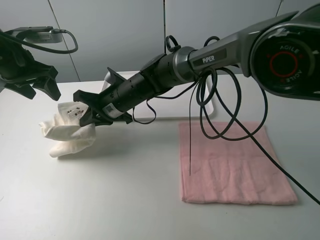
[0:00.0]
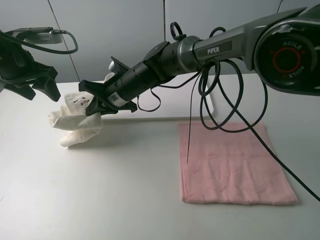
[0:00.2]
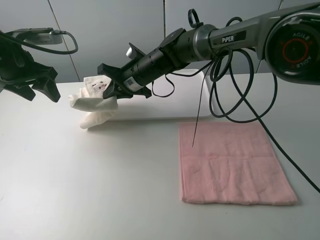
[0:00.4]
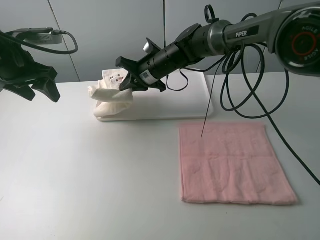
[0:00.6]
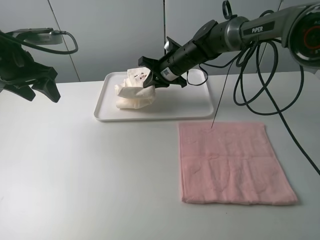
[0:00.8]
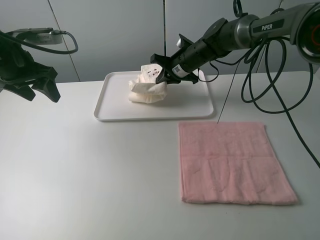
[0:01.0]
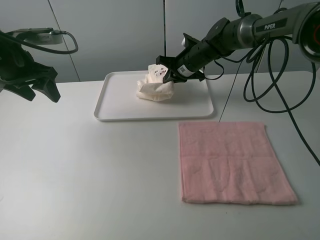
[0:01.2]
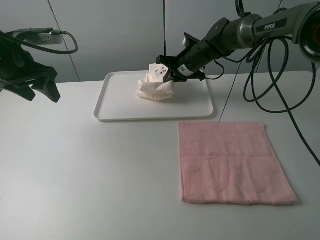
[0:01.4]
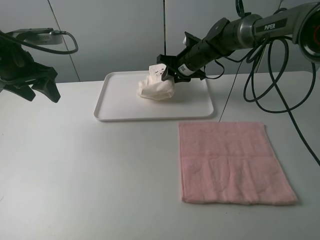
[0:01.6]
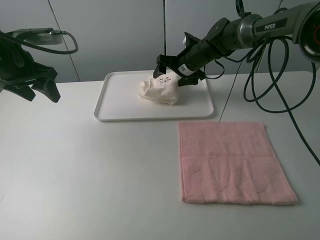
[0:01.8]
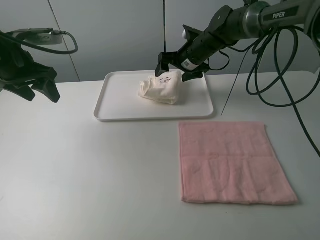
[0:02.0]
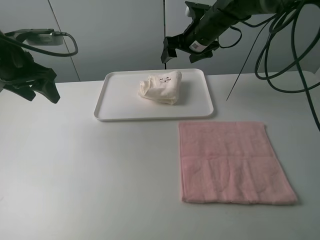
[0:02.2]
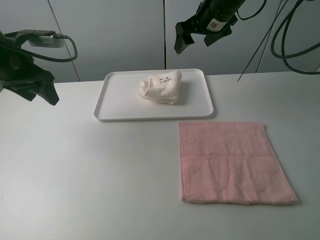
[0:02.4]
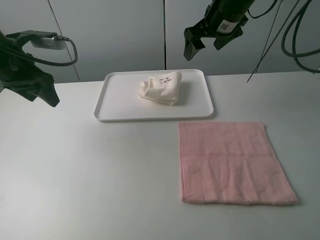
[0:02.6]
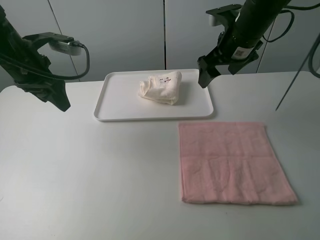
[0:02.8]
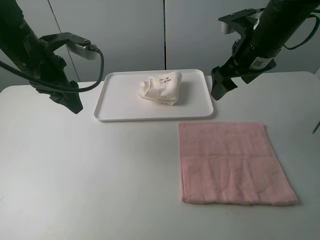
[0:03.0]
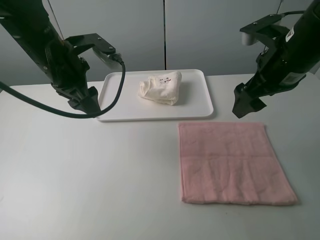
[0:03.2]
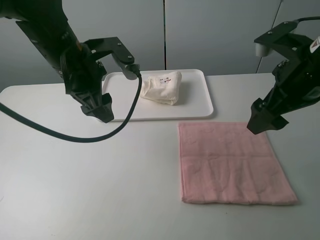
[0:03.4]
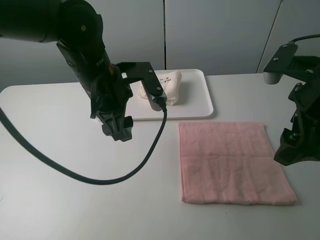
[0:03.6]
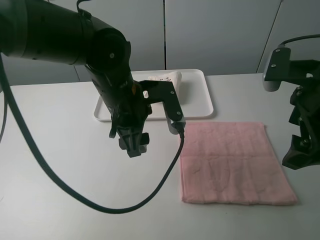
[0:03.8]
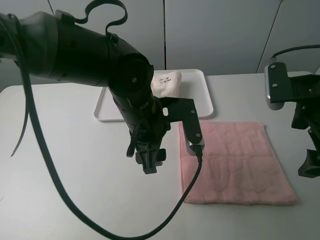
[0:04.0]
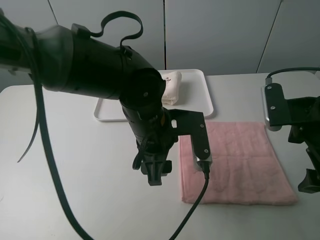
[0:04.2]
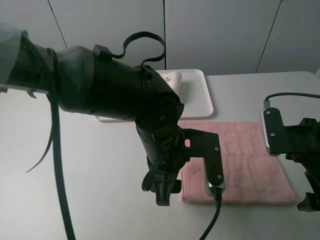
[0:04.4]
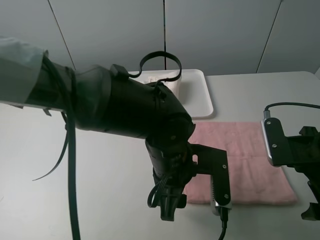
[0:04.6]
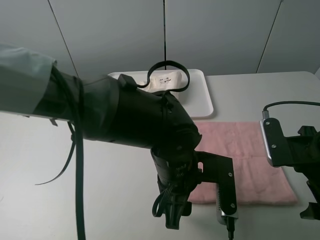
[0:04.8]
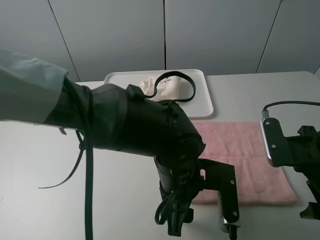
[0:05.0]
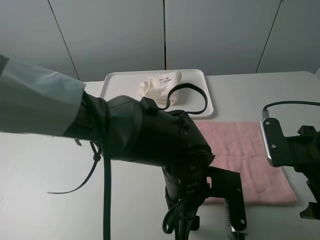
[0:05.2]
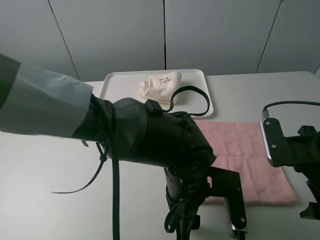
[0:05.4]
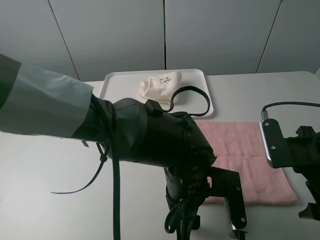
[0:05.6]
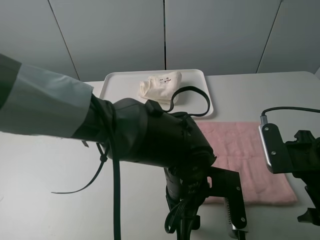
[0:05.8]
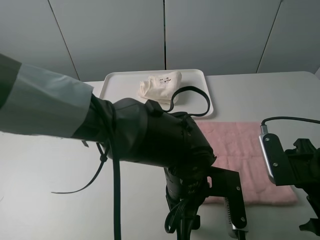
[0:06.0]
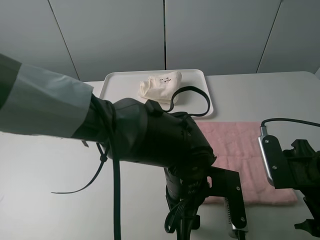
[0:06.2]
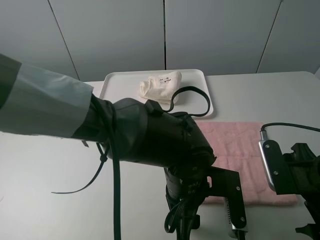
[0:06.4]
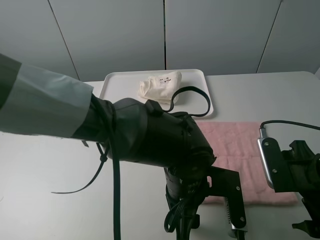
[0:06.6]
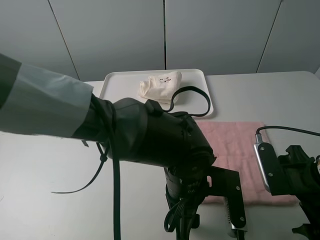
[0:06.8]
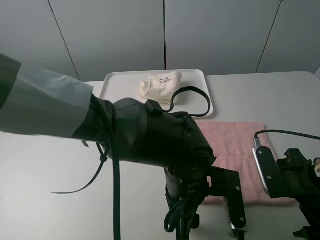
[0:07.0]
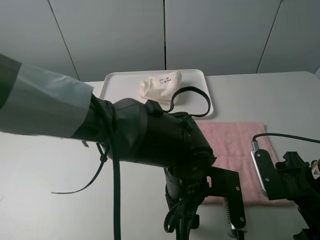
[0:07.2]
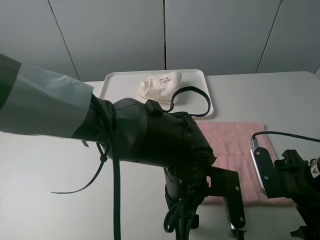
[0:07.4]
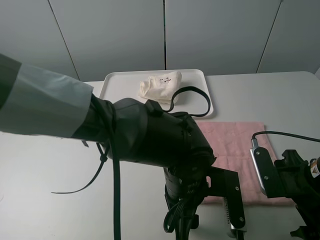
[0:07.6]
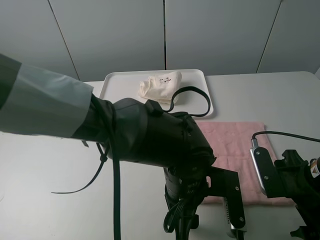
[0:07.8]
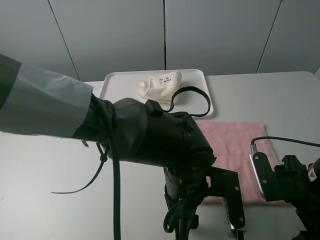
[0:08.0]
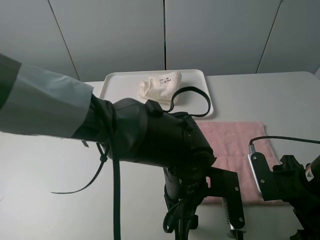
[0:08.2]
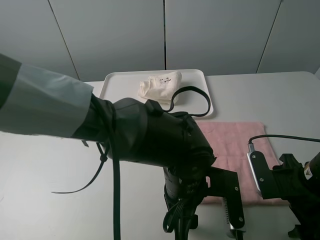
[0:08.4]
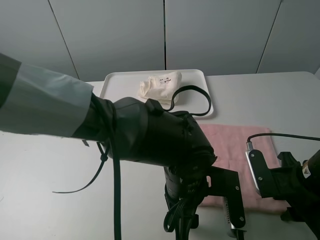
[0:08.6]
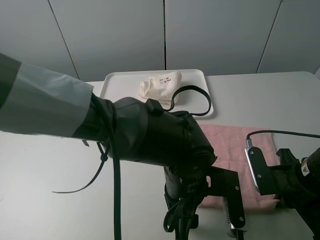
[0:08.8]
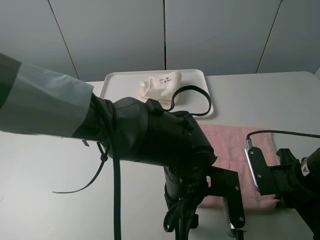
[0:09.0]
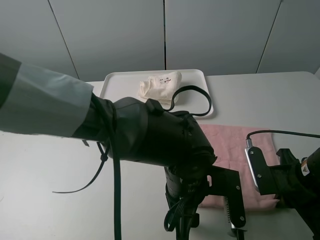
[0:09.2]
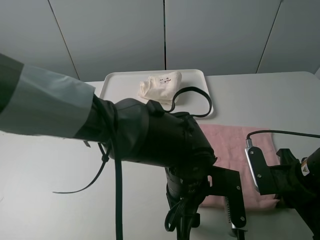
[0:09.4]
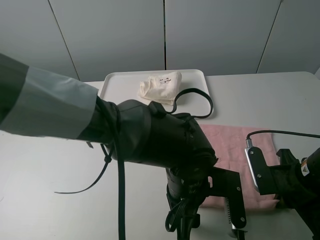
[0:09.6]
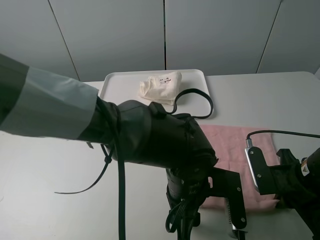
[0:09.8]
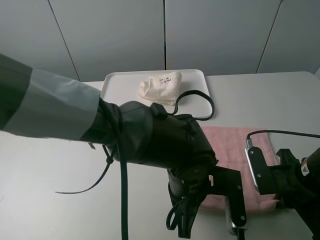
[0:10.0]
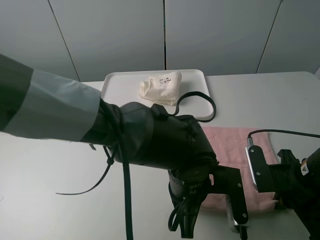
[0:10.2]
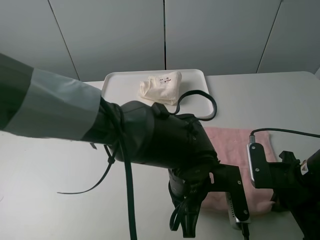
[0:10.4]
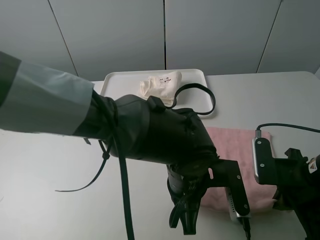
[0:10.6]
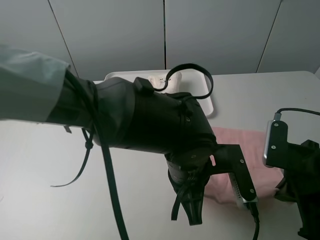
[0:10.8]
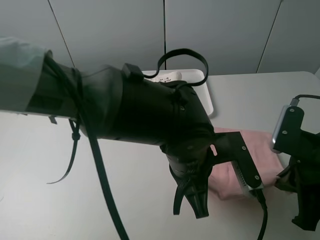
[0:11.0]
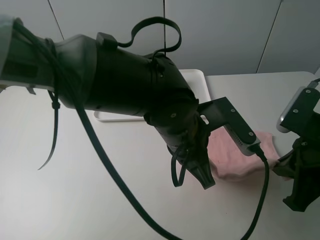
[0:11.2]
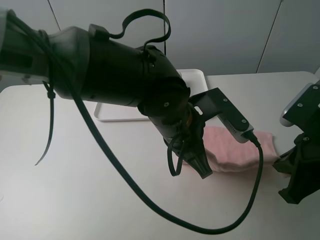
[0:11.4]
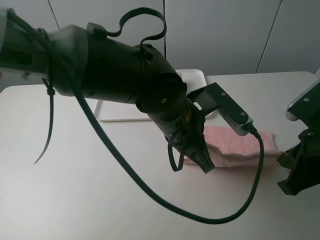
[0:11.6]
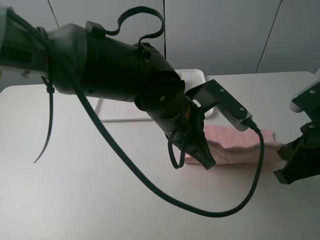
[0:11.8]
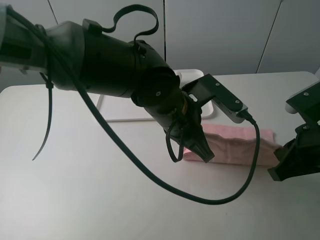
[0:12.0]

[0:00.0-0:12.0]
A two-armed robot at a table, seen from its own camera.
Task of the whole recording: fold one of the towels by two grippers and place it on the tray,then fold another towel by two grippers and place it on the folded towel.
Step, 0:00.0 to 0:02.0: Move the white towel to the plate with the right gripper.
Step, 0:02.2 to 0:10.2: Grasp the pink towel with the left gripper.
0:00.0 to 0:01.6: The right gripper goes approximately 20 cm to the right and forward, and opens up.
0:01.6 to 0:03.0: The left gripper travels to the right by about 10 cm. Meanwhile the right gripper heads backward, upward and to the right, covering some 20 cm, and opens.
0:03.0 to 0:04.4: The left gripper is displaced to the right, backward and downward by some 30 cm, while the right gripper travels backward, downward and to the right by roughly 20 cm.
0:04.4 to 0:06.0: The left gripper shifts by approximately 5 cm.
0:06.0 to 0:07.6: The grippers make only small movements.
0:07.6 to 0:09.0: The right gripper closes up.
0:09.0 to 0:10.4: The left gripper closes.
0:10.4 to 0:12.0: The left gripper goes approximately 10 cm upward and forward. Meanwhile the right gripper goes some 5 cm upward.

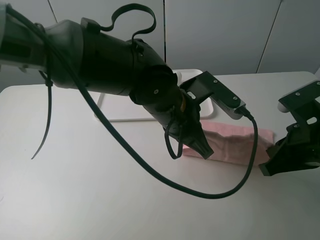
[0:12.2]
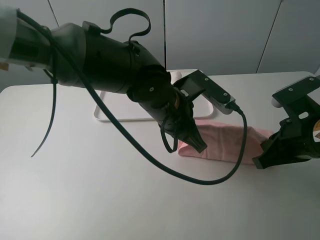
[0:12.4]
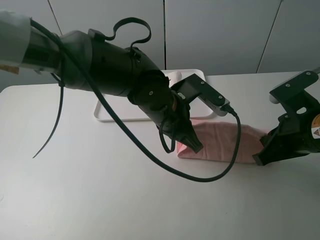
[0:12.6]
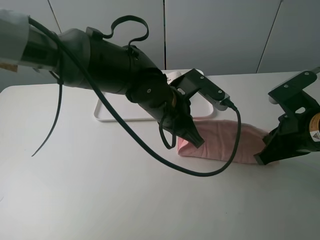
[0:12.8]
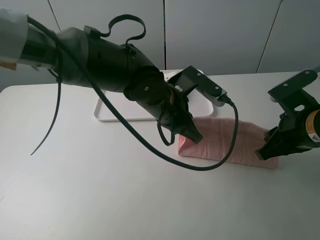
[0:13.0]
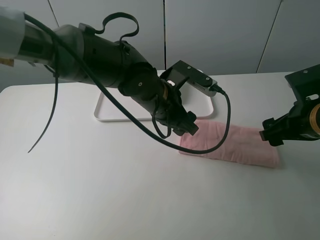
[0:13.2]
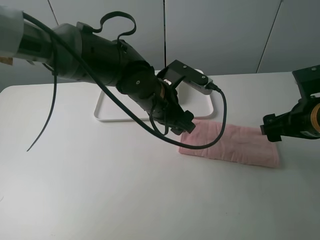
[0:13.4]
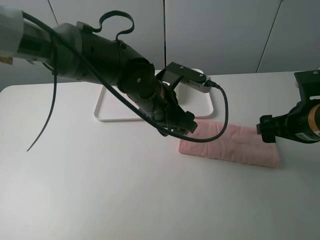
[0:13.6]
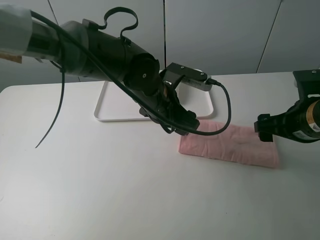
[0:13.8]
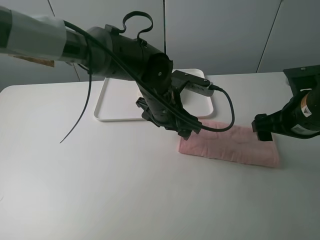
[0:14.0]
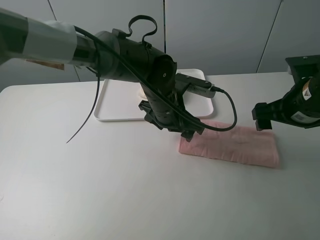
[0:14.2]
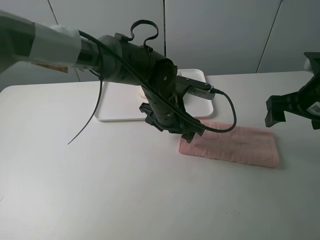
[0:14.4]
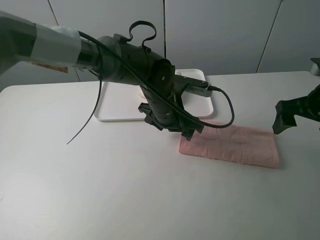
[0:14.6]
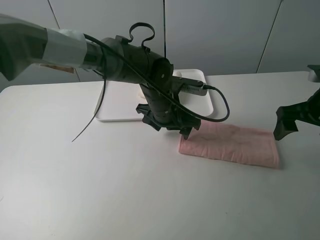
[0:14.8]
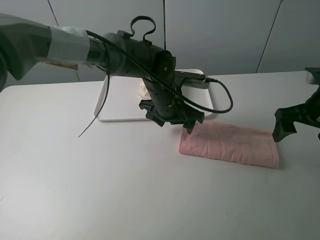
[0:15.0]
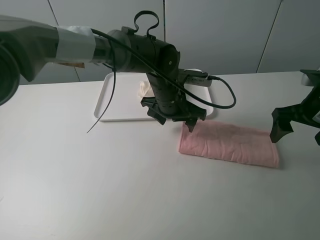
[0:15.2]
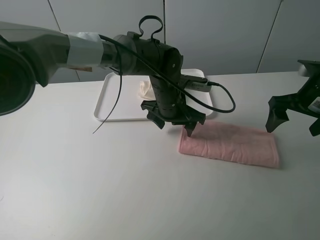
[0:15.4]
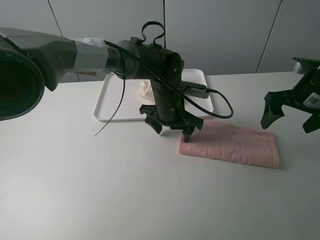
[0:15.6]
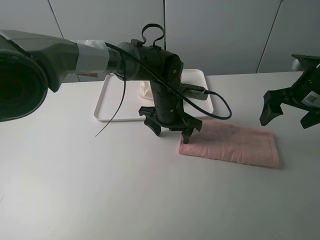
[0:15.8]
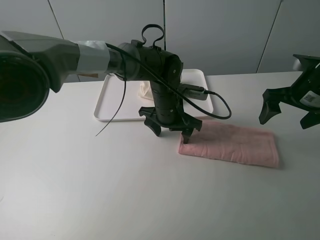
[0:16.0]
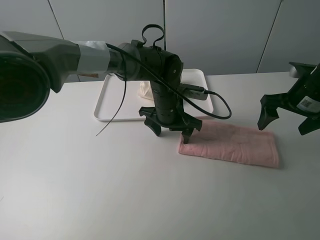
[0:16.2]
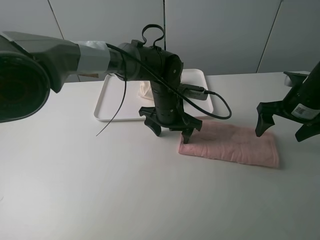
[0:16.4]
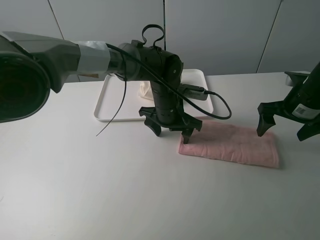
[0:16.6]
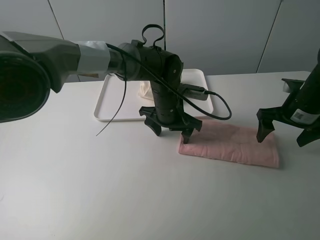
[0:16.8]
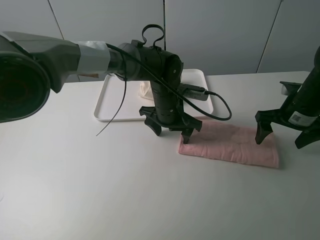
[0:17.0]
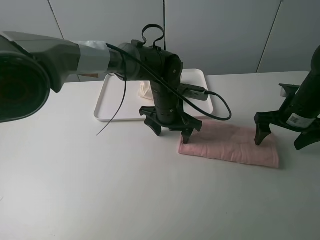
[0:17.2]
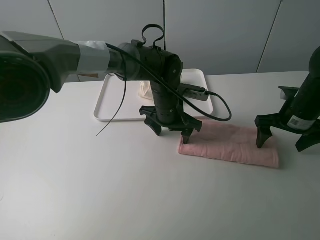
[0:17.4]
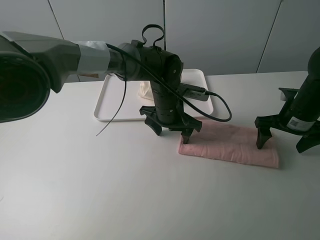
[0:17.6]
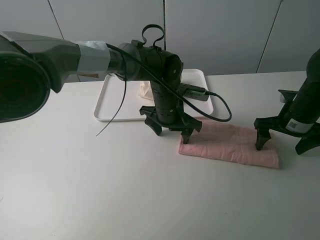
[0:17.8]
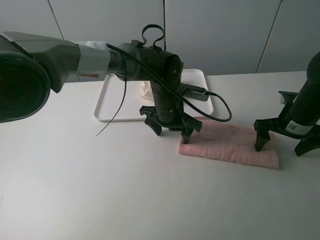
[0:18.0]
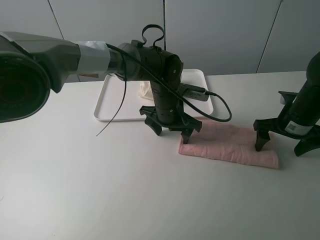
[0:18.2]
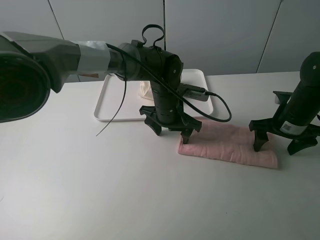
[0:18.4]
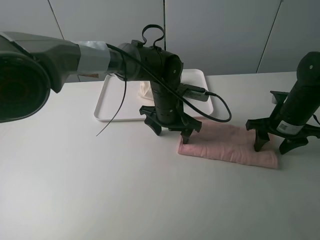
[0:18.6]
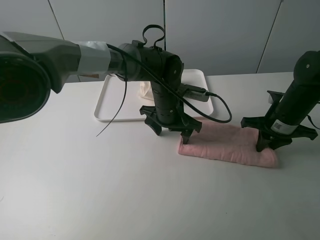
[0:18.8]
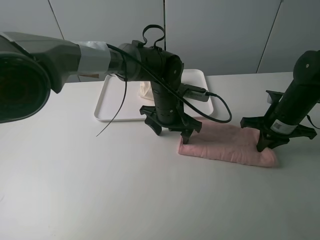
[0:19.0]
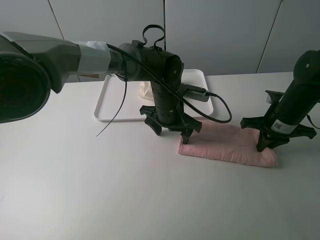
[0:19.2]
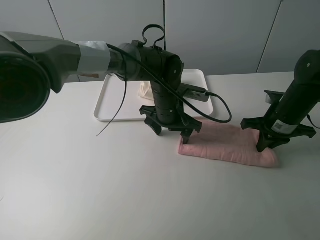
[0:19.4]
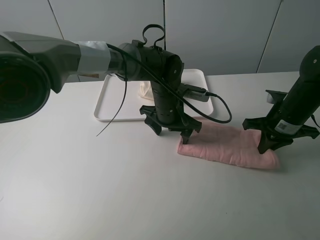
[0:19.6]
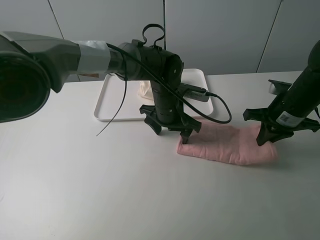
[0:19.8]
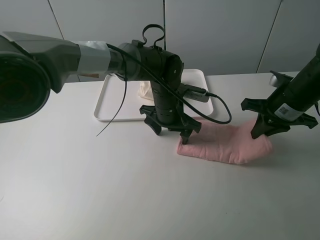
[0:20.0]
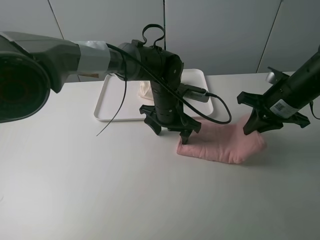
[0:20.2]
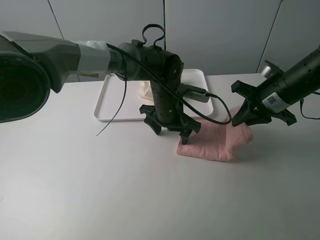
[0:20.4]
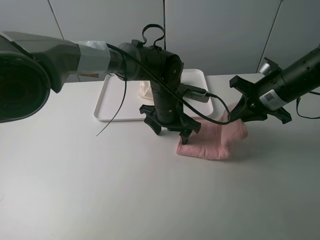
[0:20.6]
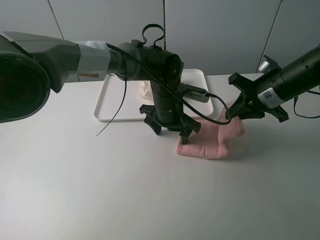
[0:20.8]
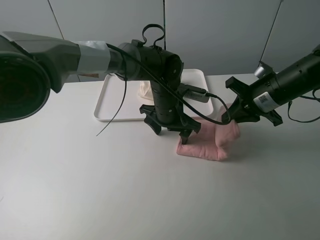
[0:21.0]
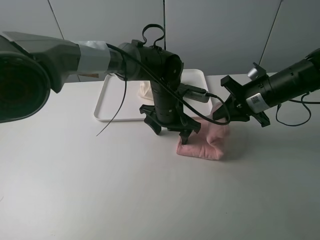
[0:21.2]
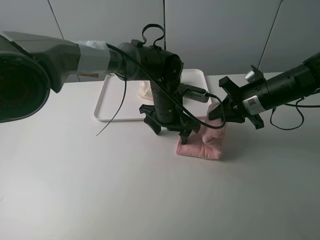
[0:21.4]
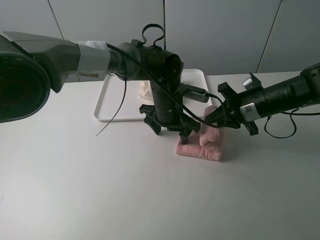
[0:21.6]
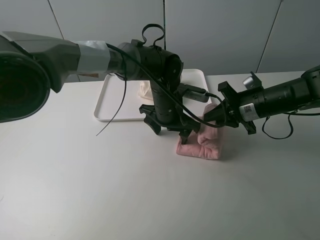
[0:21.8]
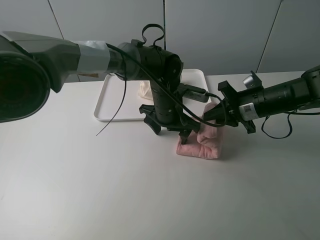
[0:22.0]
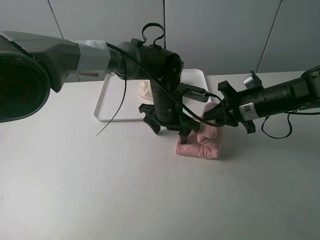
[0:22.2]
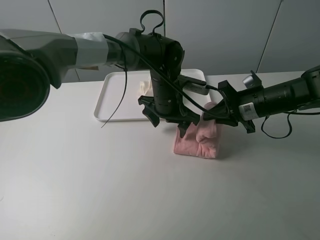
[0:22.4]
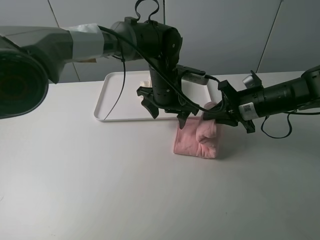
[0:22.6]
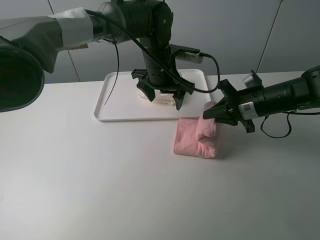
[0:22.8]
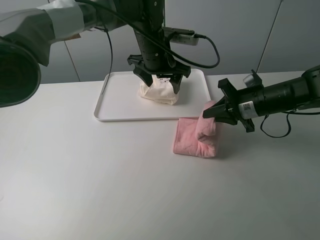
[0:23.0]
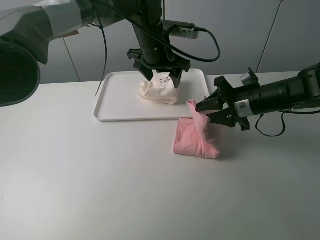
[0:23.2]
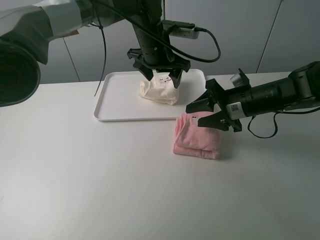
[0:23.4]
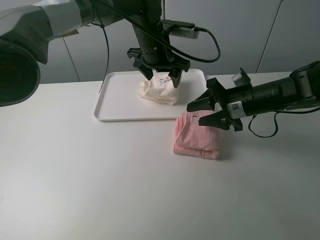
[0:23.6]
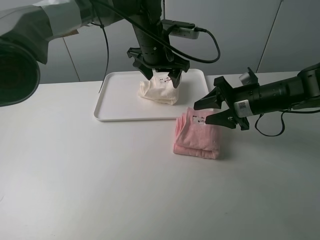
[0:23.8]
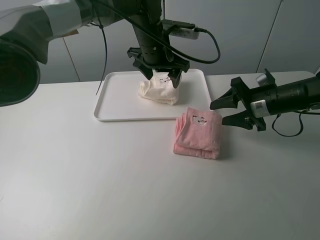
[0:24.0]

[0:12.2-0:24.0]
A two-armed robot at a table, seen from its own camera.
Task of the whole recording: fold one of the towels by two grippers and place it on the tray,then fold another towel by two grippers and place it on the folded towel.
Step, 0:13.6 to 0:16.4: Press the pink towel with the left gripper.
Step, 0:16.6 to 0:19.2: Grasp the pink towel with the right gripper.
Step, 0:19.4 to 0:23.6: Fold the pink towel from right to left with right gripper.
0:12.2 to 0:13.6: The left gripper moves approximately 5 cm, and opens. Meanwhile the right gripper opens its fingers.
0:13.6 to 0:15.2: Both grippers travel together forward, approximately 5 cm.
0:15.2 to 0:16.6: The grippers move only a little.
0:16.6 to 0:18.2: The grippers move only a little.
0:18.2 to 0:19.6: The right gripper closes.
0:19.6 to 0:21.0: The right gripper moves some 5 cm.
0:21.0 to 0:22.6: The left gripper changes place by approximately 5 cm.
0:22.6 to 0:24.0: The left gripper travels upward by approximately 5 cm. The right gripper opens its fingers.
